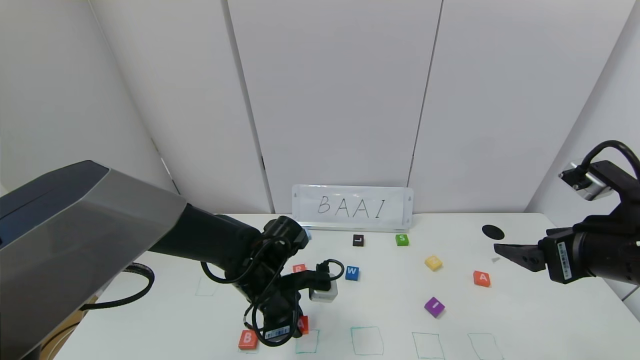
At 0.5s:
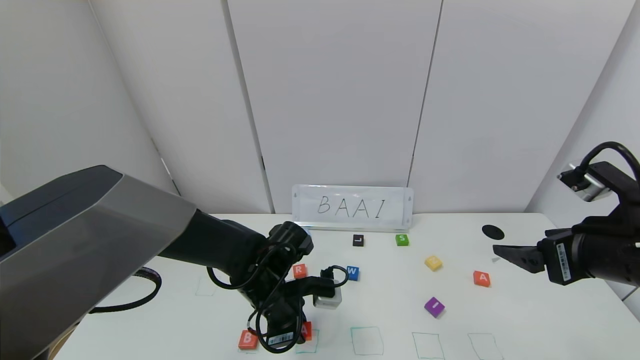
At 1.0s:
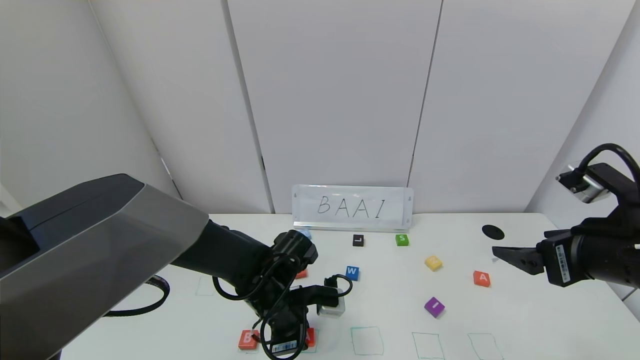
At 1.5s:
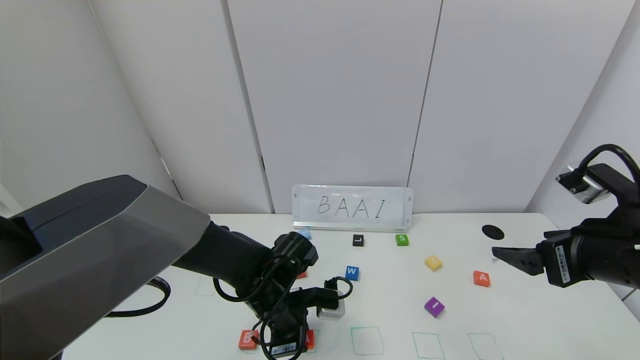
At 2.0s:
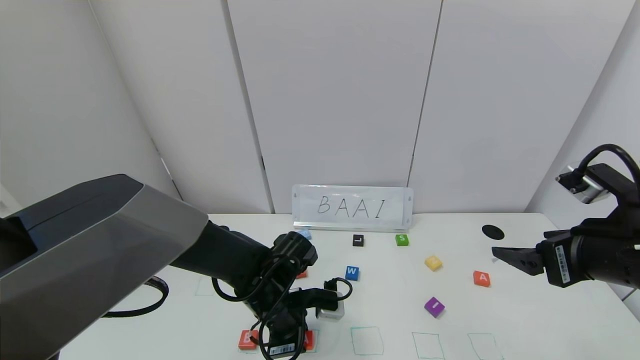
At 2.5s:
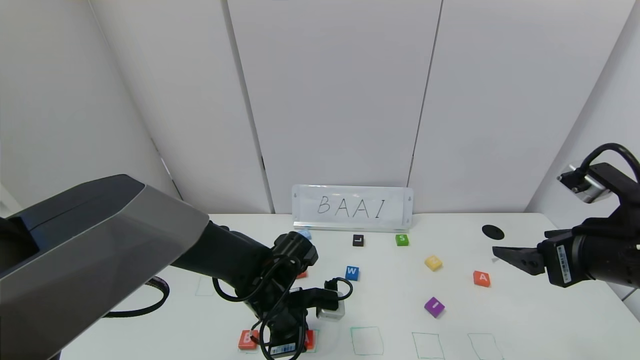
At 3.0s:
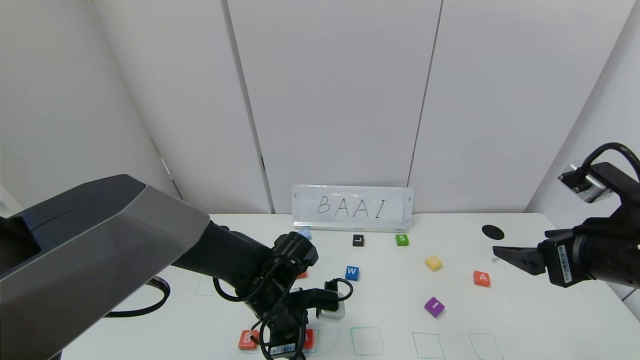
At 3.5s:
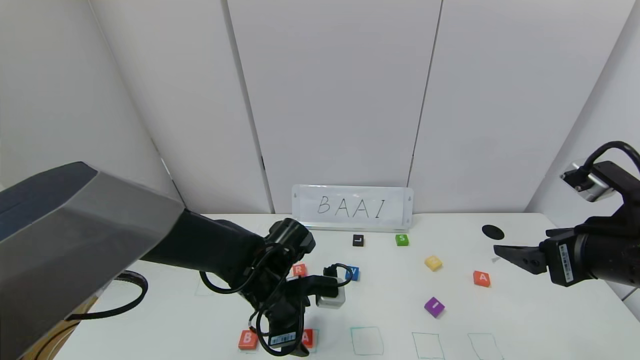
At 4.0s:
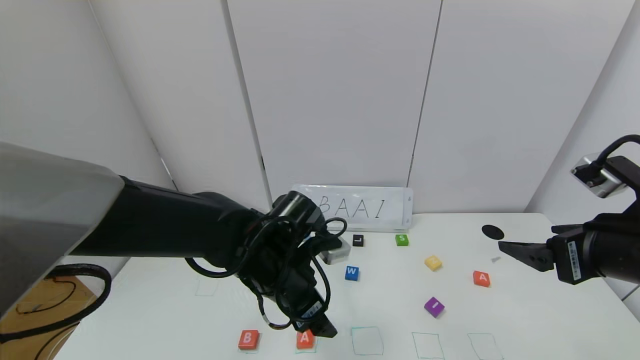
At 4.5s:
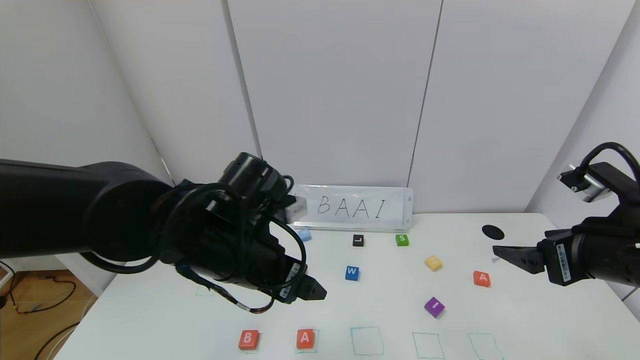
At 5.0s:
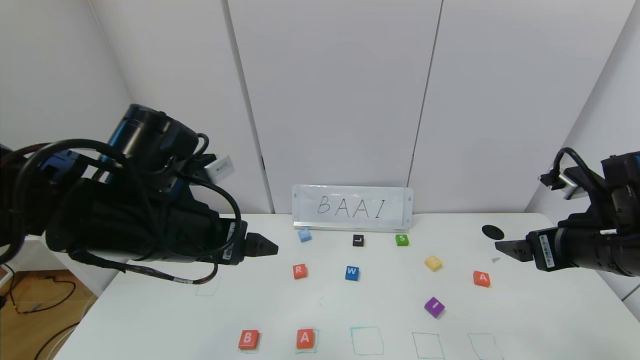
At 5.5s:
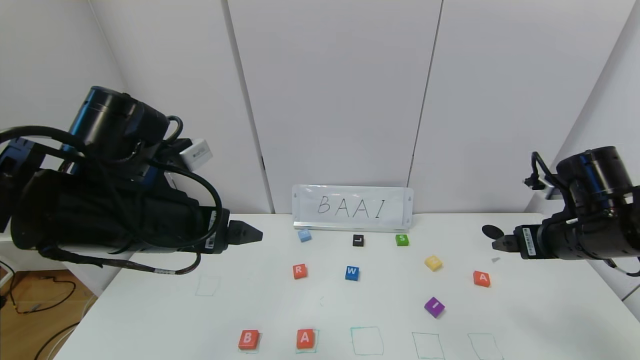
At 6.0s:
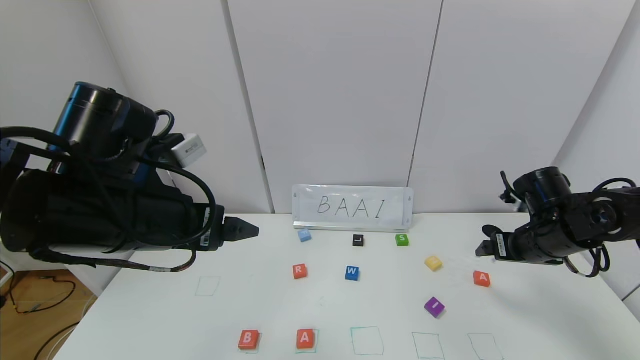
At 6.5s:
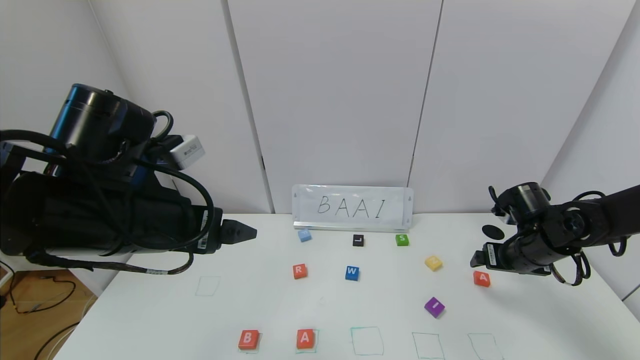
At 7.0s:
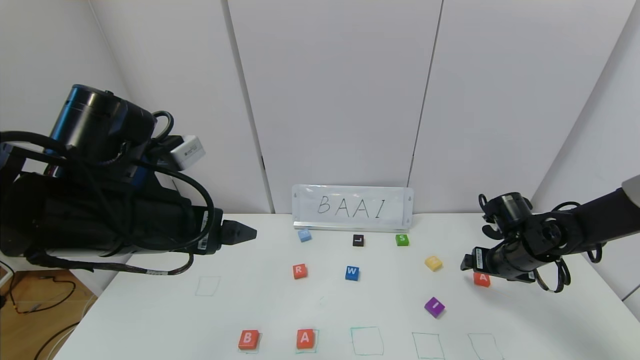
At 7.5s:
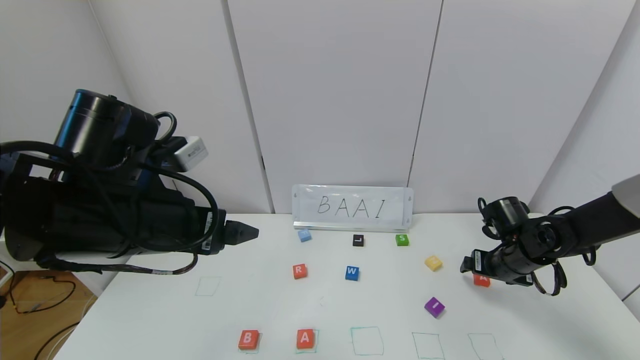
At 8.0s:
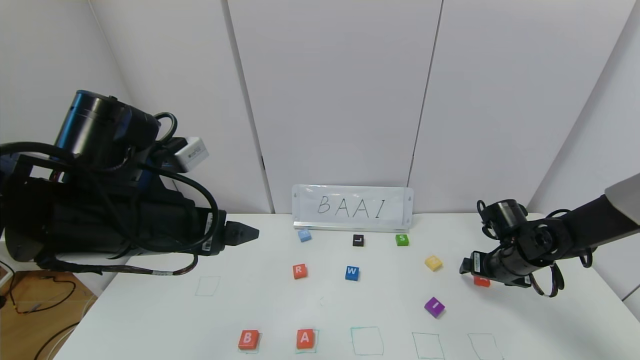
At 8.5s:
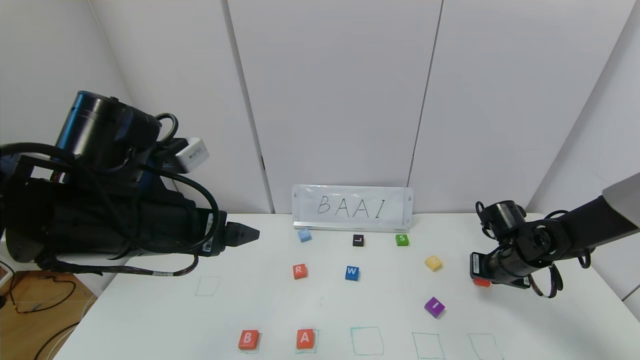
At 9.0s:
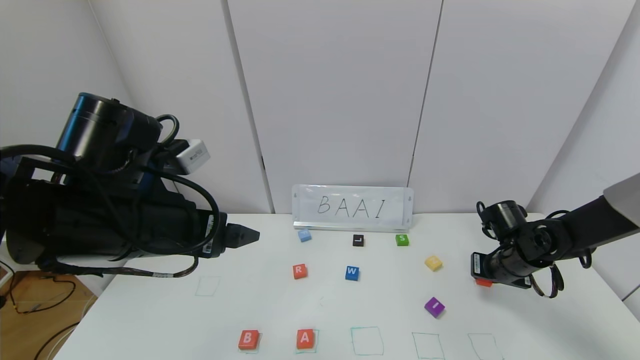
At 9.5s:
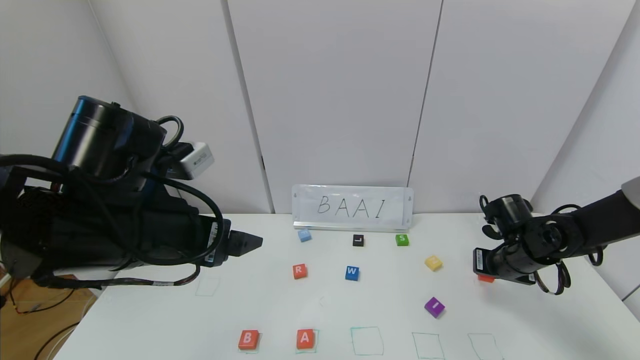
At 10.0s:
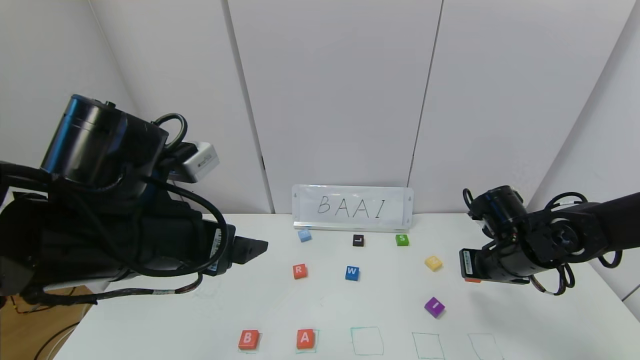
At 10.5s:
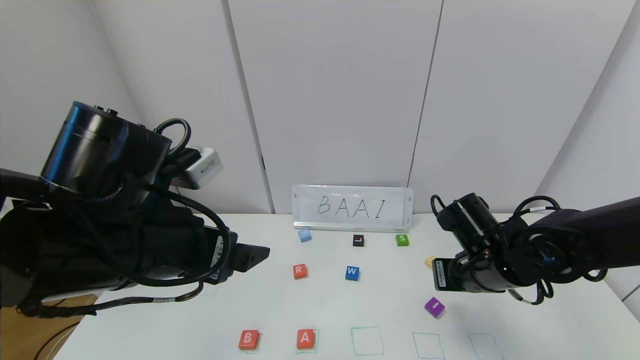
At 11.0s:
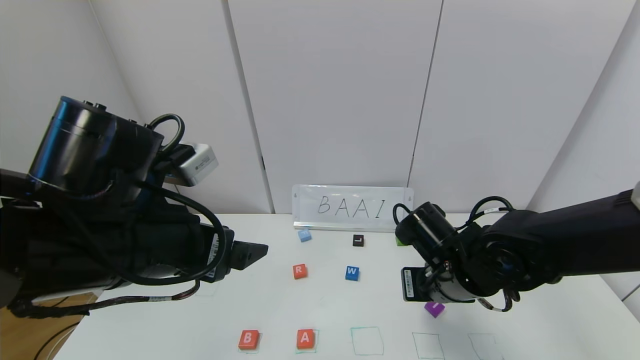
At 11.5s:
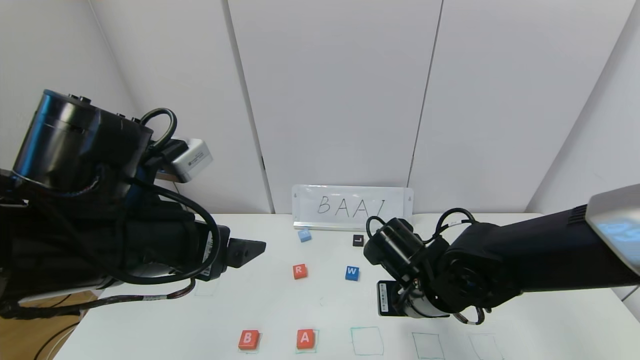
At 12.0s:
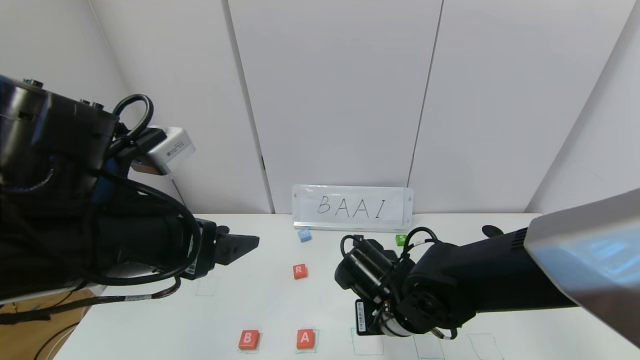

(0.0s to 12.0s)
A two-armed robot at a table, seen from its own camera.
Task of the whole recording: use the gripper to find blocks with the letters b, a, a, and i on the table and arrange them into BAAI, then find r and N and turn the arranged baai into brian.
Step, 0.0s - 3.0s: Place the first block A in the second location.
0.0s - 2.0s: The grippers make only small movements.
2.0s - 4.0s: The left gripper travels upward by approximately 10 cm, and opens.
4.0s - 6.0s: The right gripper travels forward and downward by some 15 cm. The left gripper shifts roughly 15 cm upward, to the left and backward.
6.0s - 8.0s: The right gripper is displaced downward by some 10 cm.
8.0s - 10.0s: The right gripper travels upward and to the left by some 10 cm, and closes up.
10.0s - 12.0s: The right gripper shifts roughly 20 cm to the left.

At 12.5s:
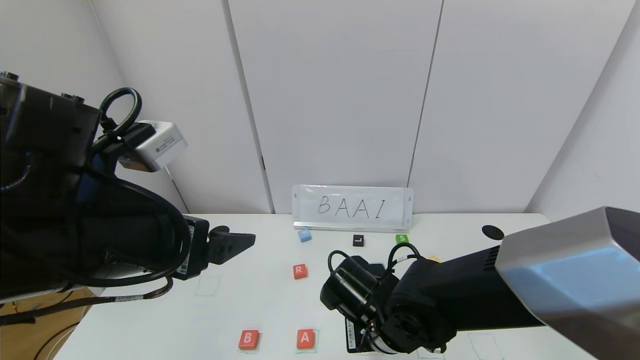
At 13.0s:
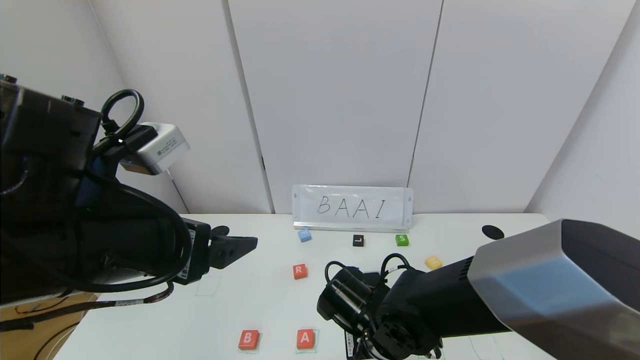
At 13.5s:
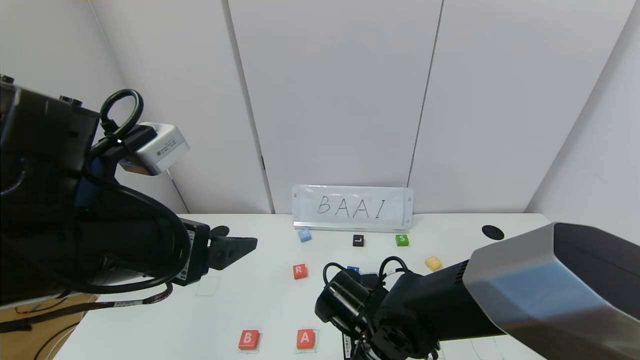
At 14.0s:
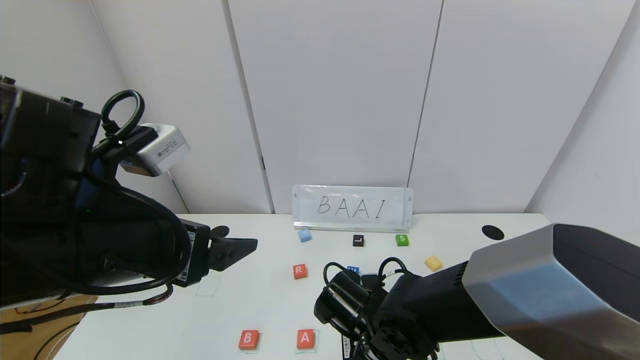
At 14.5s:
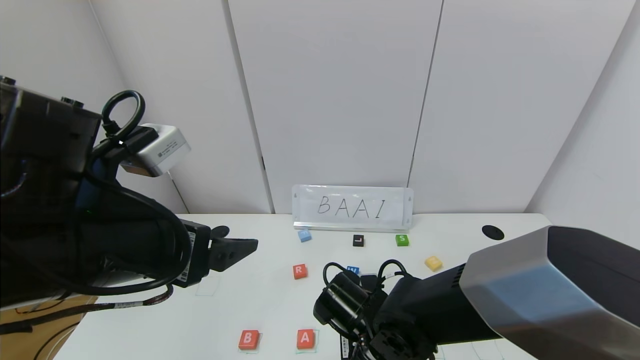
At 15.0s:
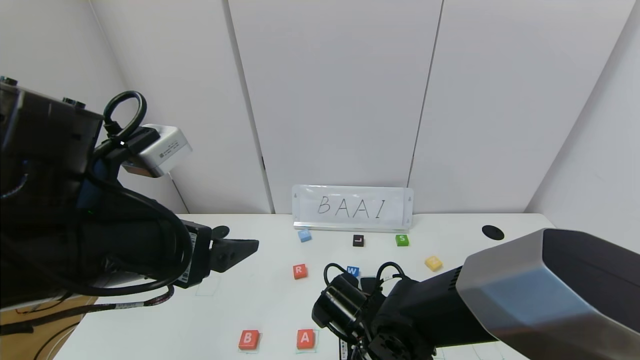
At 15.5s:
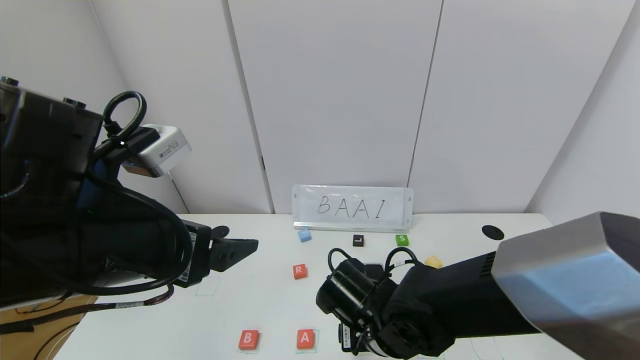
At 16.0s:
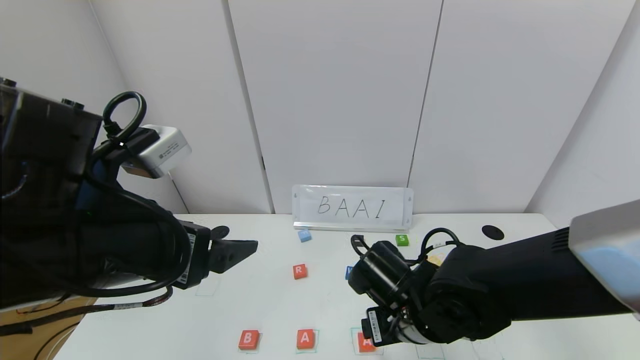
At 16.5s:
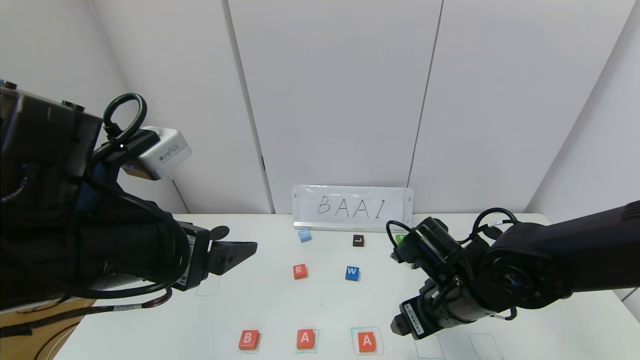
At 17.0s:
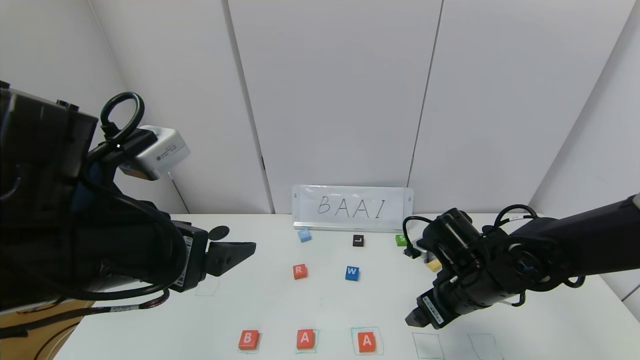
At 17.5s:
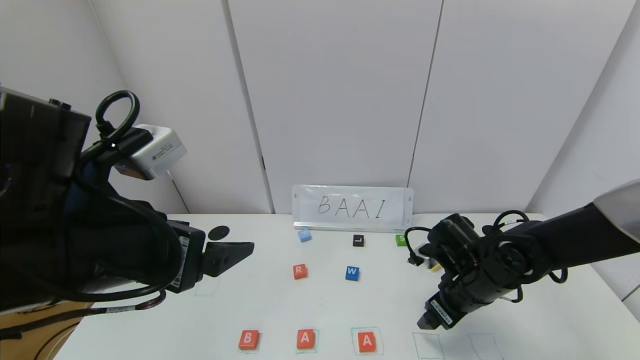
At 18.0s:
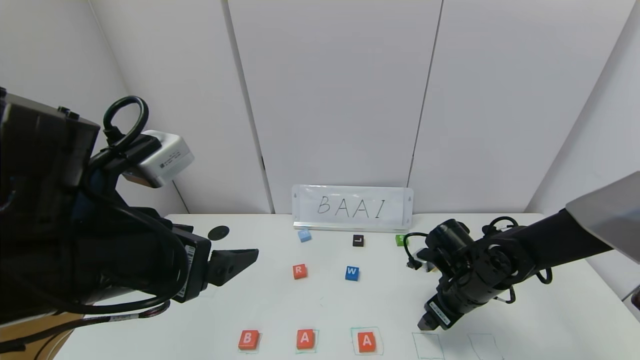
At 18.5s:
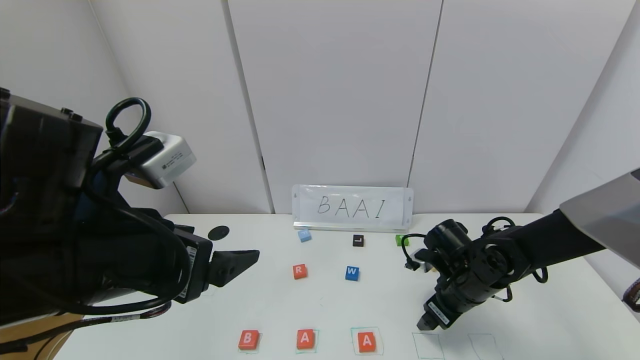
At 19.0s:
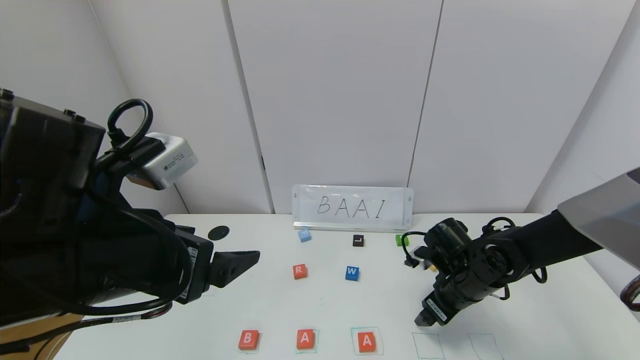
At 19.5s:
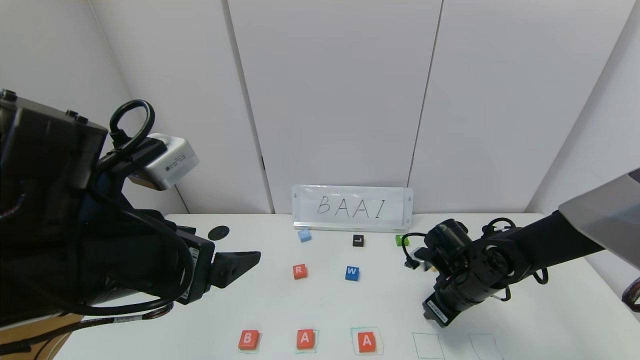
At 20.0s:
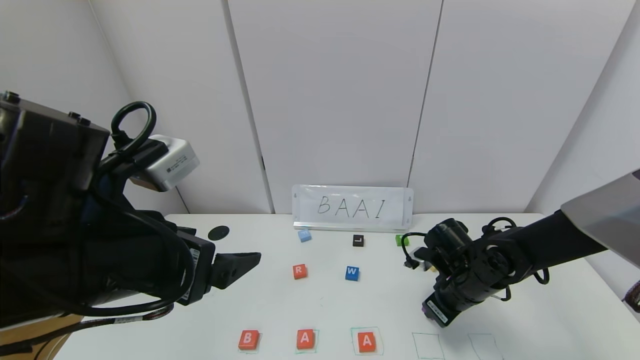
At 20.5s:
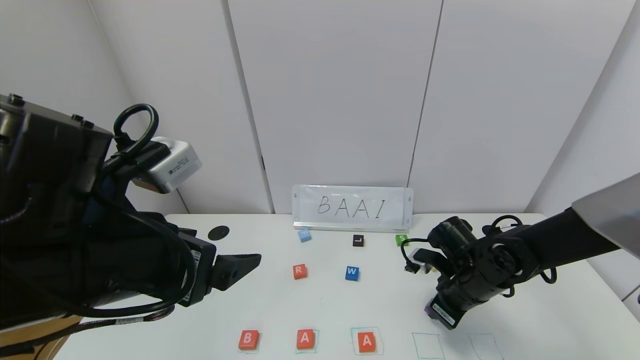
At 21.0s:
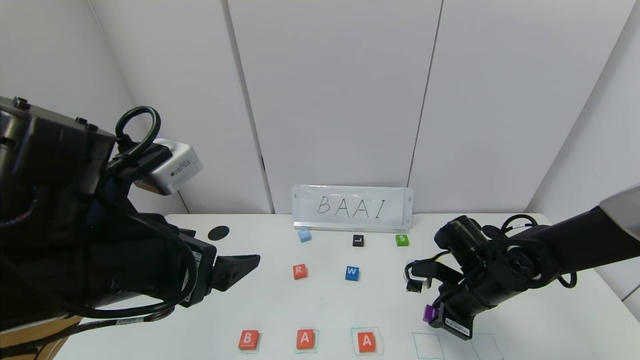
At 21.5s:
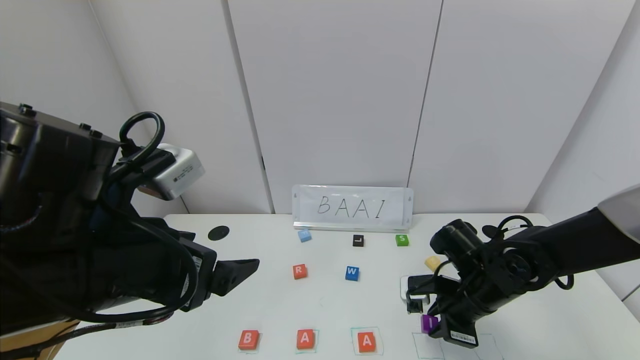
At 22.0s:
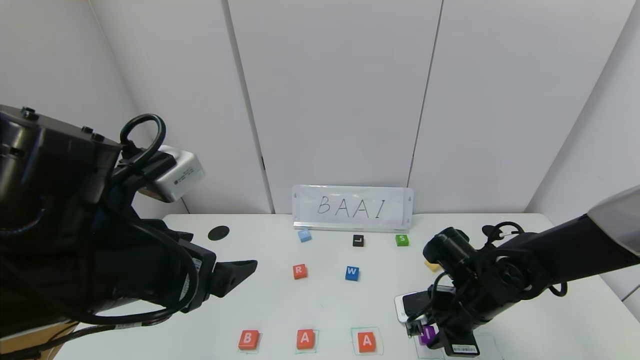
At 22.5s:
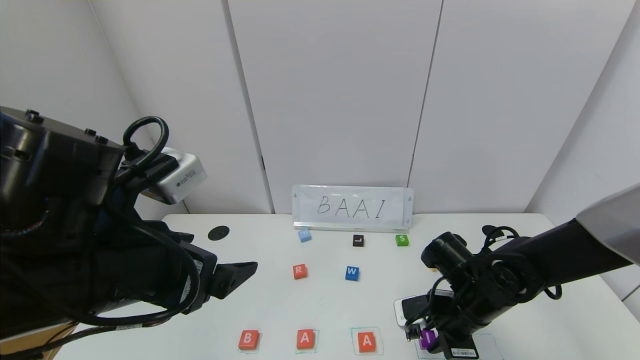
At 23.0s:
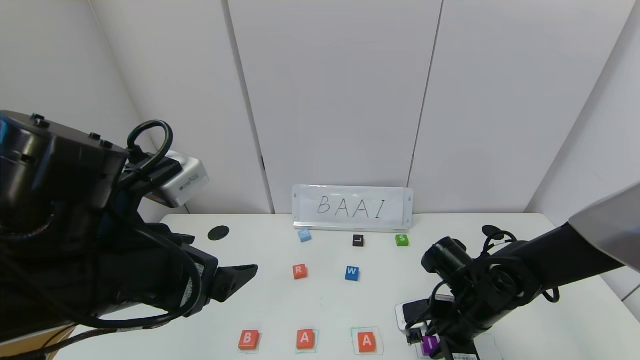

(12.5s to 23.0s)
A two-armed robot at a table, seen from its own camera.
Task of the whole recording: use the gripper to find blocks with the letters b, a, a, and i on the table and arrange them into BAAI, then find r and N and turn the arranged baai into brian.
Step, 12.5s - 15.0s: Place the second block A in the third location.
12.5s - 14.5s: The grippers make only small movements.
14.5s - 16.5s: The right gripper is displaced to the right and upward by roughly 10 cm, and opens its fingers.
16.5s - 19.0s: The right gripper heads forward, downward and to the right, covering approximately 10 cm.
19.0s - 21.0s: The right gripper closes up.
